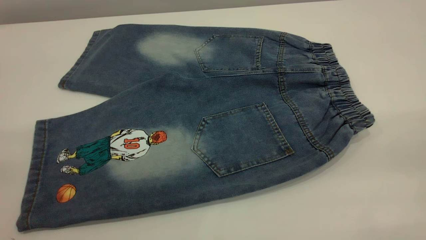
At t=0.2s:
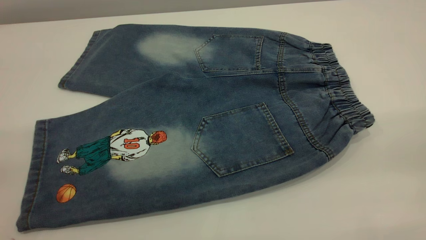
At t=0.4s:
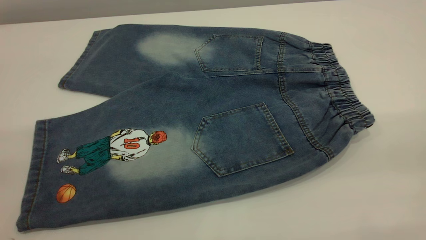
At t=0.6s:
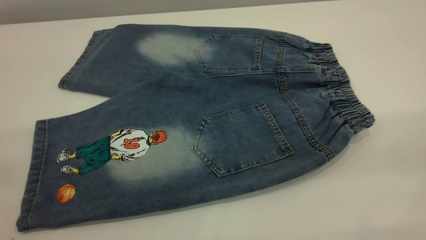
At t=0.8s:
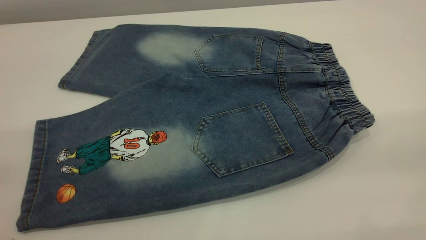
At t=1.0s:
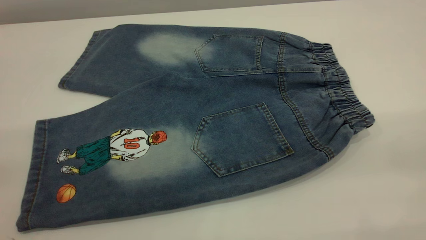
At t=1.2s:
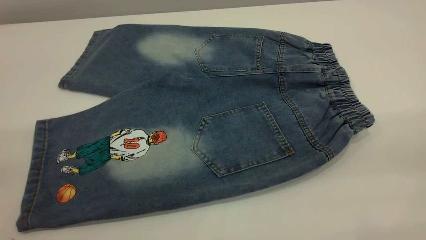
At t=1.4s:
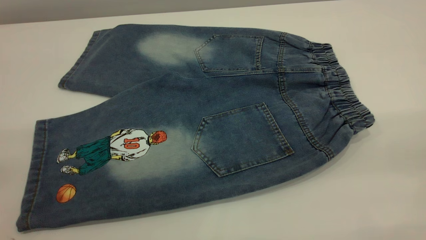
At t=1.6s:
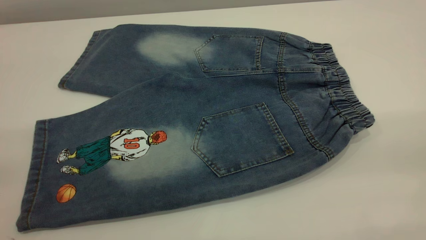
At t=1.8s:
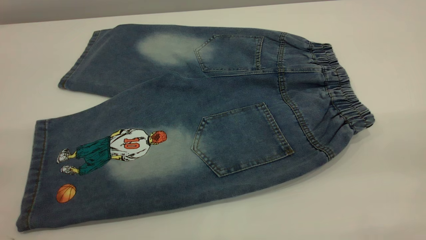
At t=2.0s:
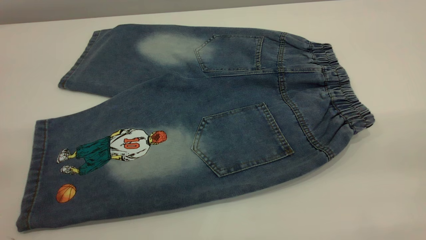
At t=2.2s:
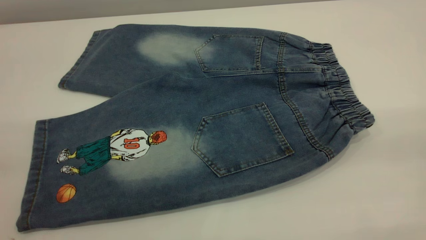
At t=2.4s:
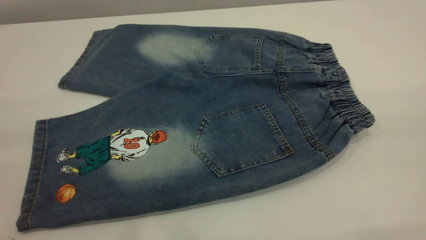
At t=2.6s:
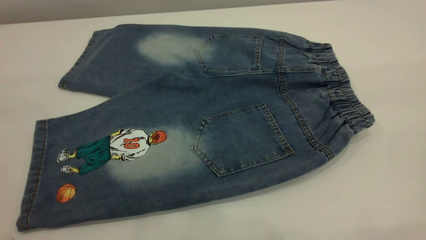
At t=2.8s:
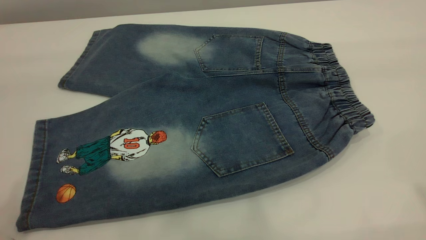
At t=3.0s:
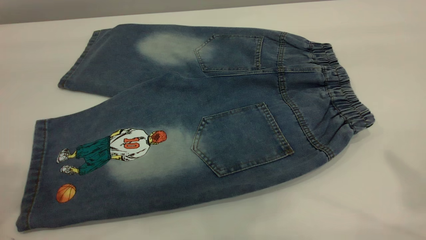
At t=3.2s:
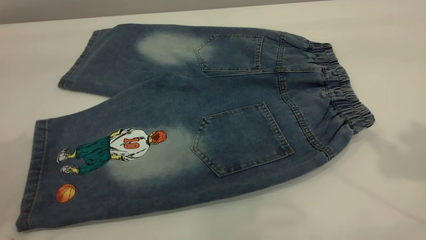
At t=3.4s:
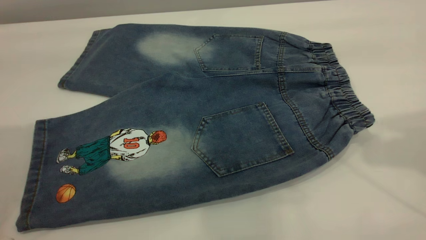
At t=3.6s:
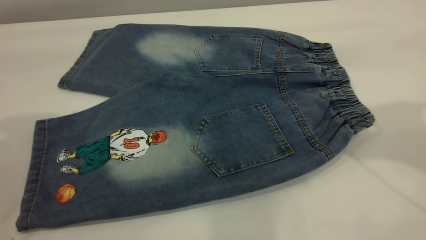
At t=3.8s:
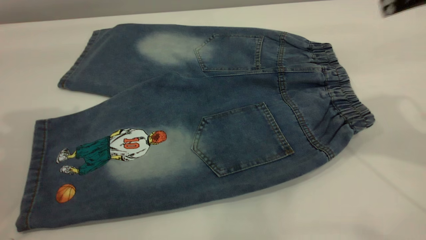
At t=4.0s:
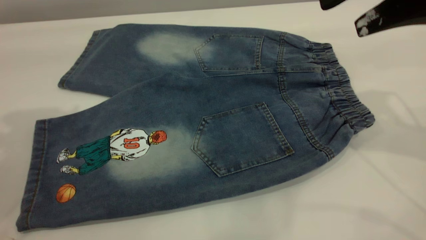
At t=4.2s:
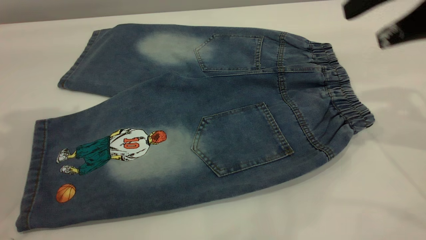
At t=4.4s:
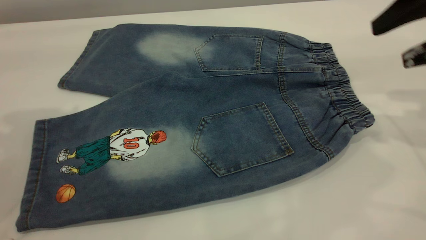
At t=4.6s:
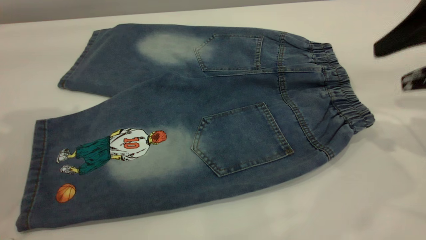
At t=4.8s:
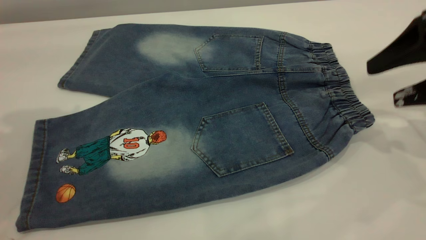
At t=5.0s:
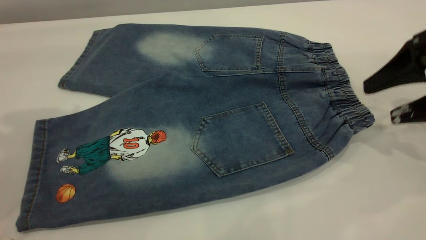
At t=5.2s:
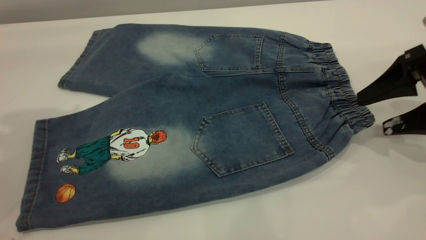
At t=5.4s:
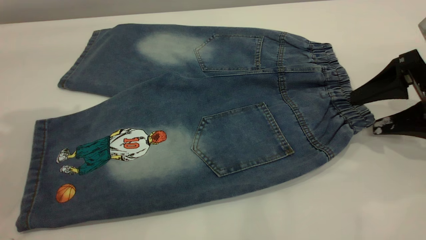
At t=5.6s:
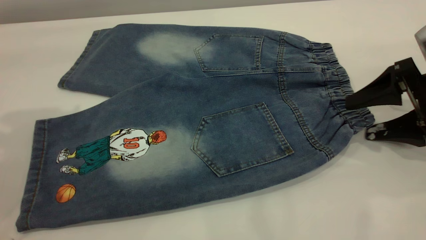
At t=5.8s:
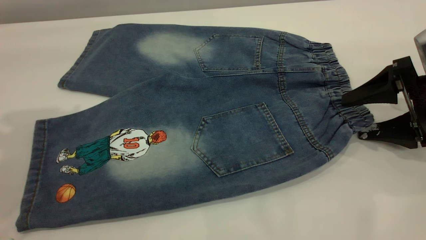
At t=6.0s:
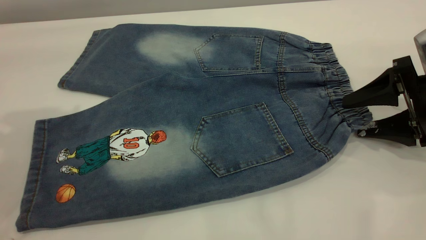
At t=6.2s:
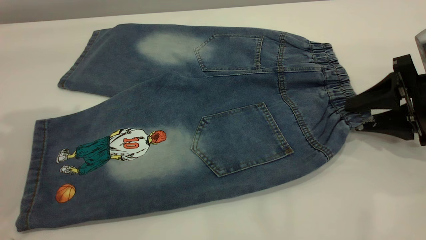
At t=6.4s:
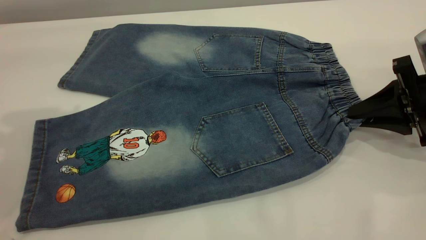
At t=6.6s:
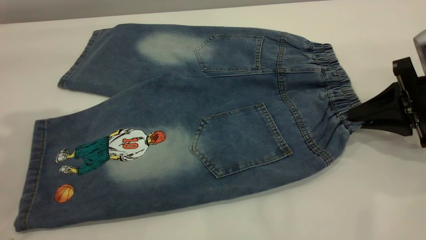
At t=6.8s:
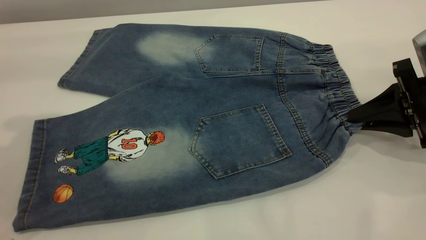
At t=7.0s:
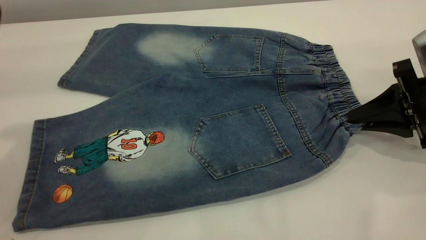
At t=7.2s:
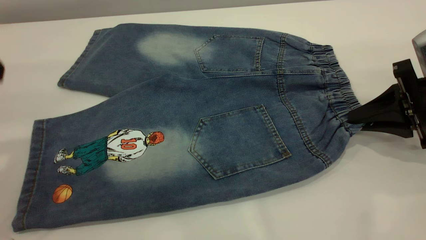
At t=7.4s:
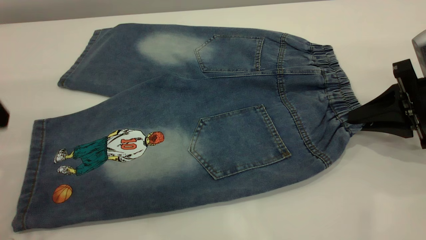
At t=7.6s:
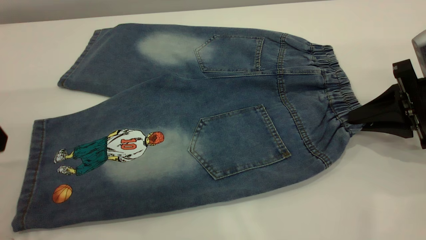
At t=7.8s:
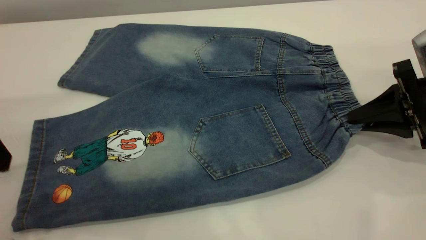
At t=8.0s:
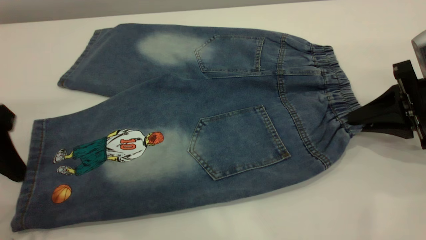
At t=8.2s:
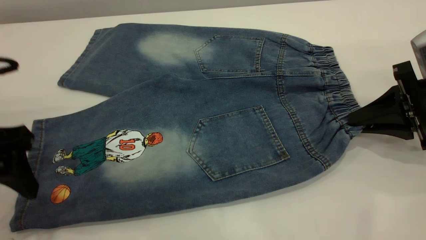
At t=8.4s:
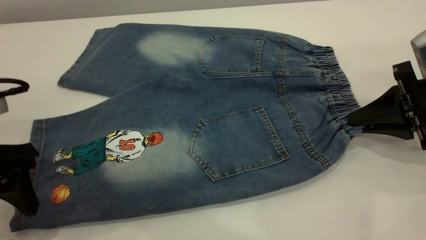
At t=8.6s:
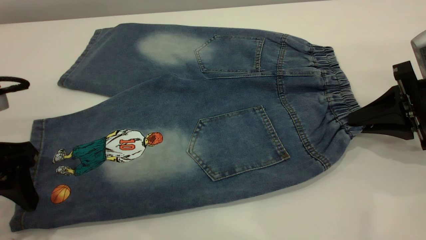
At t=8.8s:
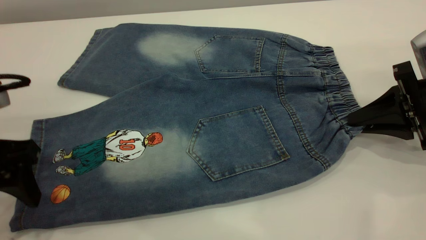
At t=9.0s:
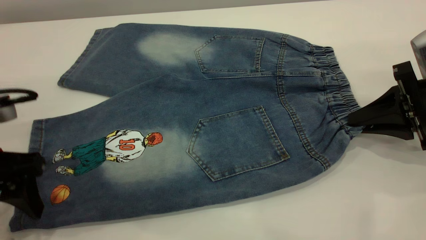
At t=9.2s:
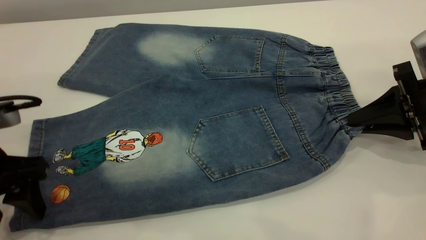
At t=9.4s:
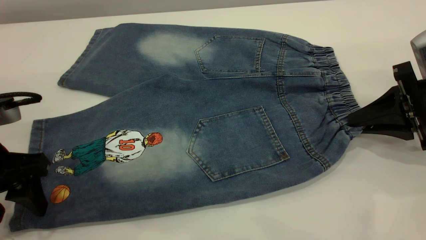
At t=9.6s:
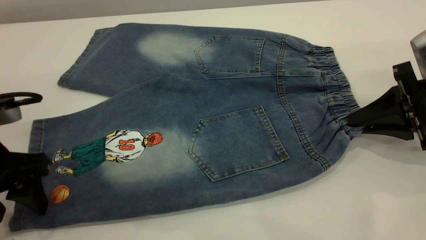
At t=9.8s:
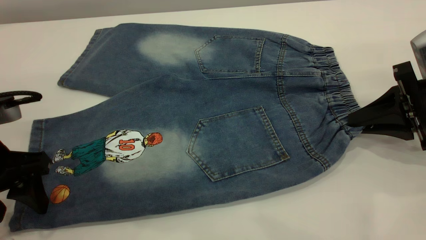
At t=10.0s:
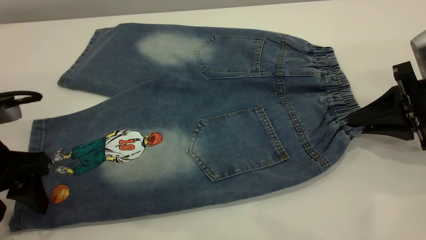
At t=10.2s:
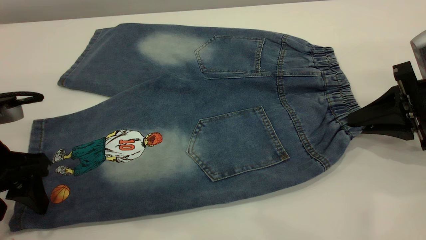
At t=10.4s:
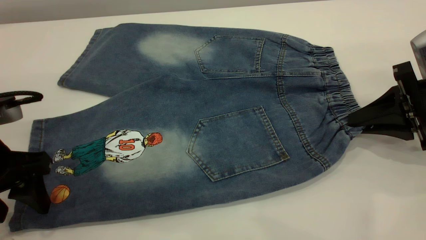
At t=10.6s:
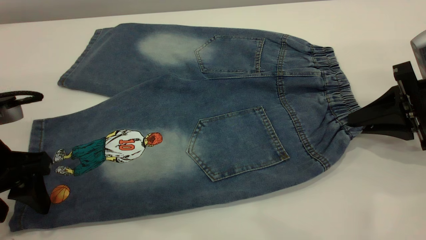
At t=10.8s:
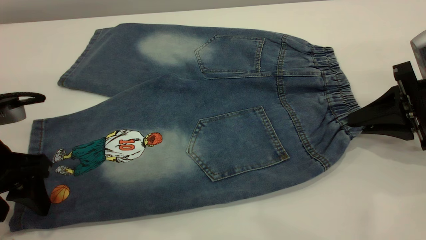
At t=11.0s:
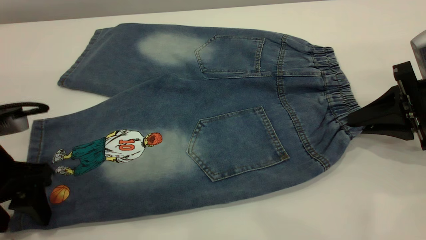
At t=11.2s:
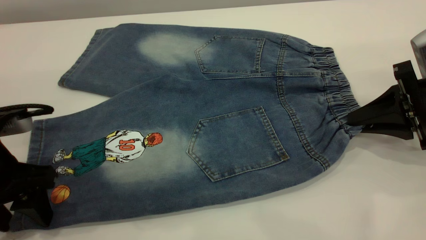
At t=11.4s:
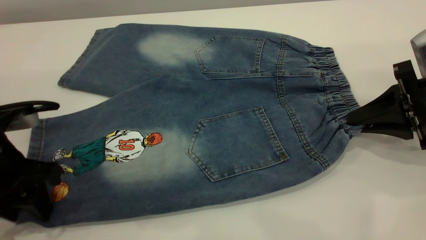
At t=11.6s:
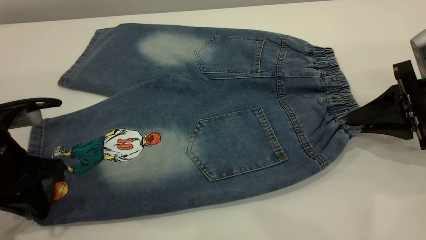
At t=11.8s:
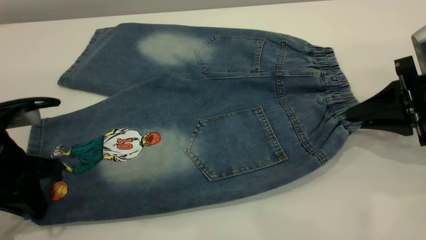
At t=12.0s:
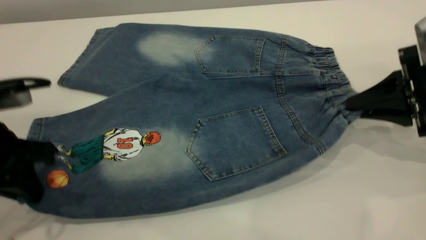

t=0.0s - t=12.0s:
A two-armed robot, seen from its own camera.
t=0.0s - t=1.6s: Both grippers stay put.
t=3.0s - t=4.4s: The left gripper moves forward and downward, roughly 10 cm. Meanwhile the right gripper goes roughly 25 cm downward and forward.
t=4.4s - t=6.0s: The right gripper is displaced downward by approximately 15 cm.
t=6.0s - t=7.6s: The right gripper closes its fingers. The left gripper heads downward and backward, covering about 15 cm.
t=7.6s - t=9.0s: The left gripper moves downward, approximately 10 cm.
t=9.0s - t=10.4s: Both grippers stay put.
t=10.4s - t=12.0s: The left gripper closes.

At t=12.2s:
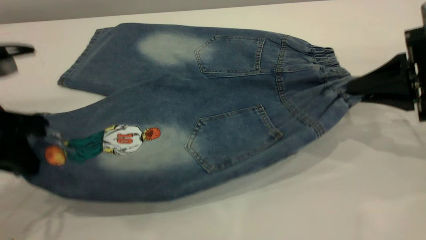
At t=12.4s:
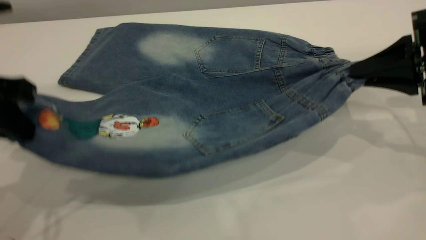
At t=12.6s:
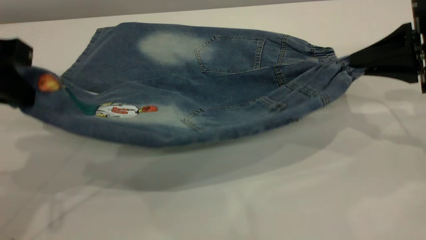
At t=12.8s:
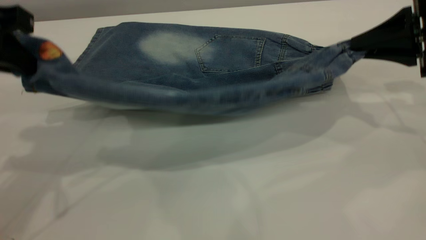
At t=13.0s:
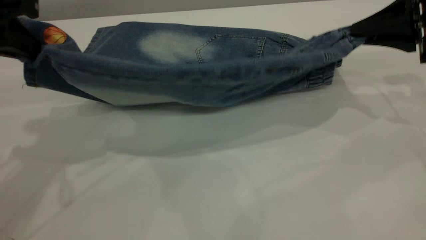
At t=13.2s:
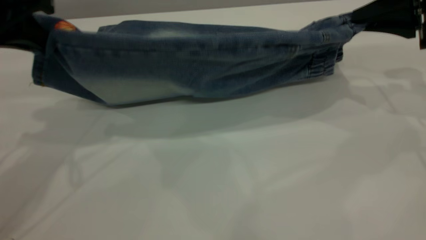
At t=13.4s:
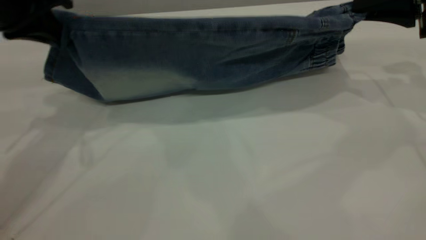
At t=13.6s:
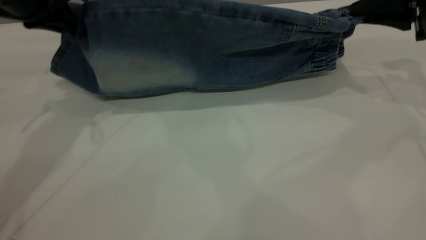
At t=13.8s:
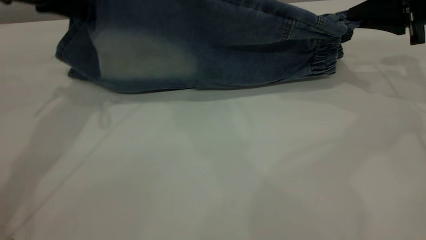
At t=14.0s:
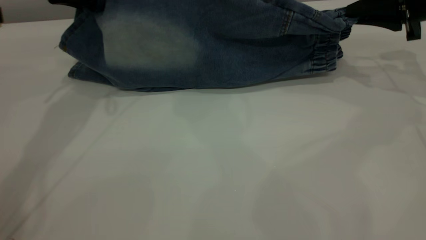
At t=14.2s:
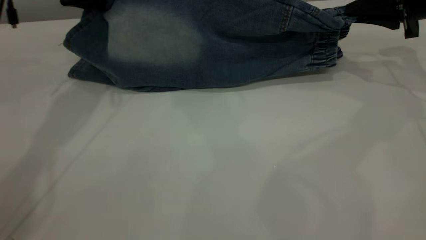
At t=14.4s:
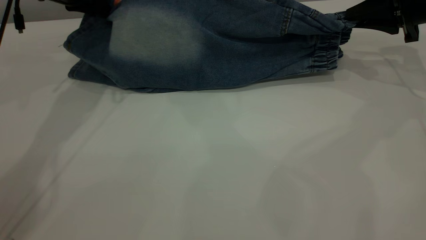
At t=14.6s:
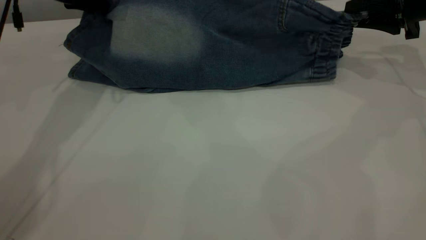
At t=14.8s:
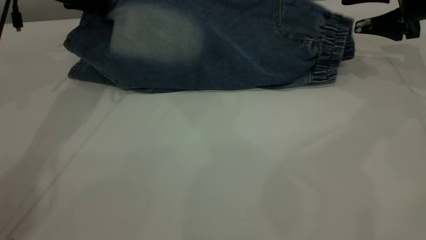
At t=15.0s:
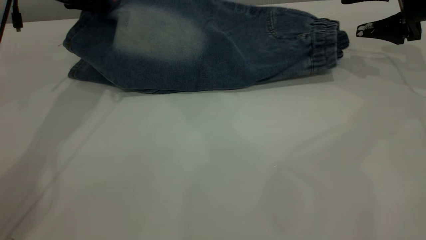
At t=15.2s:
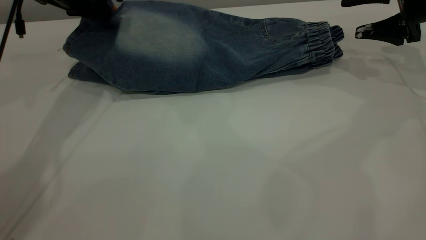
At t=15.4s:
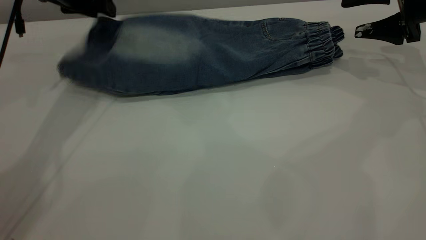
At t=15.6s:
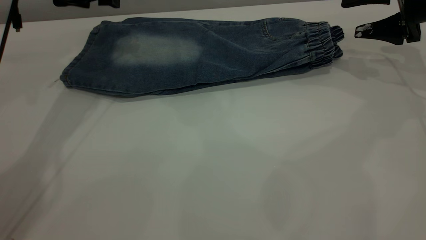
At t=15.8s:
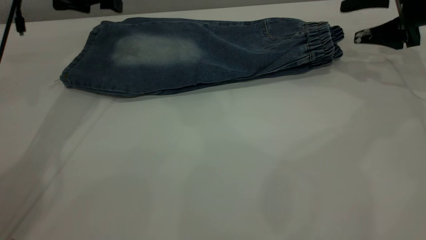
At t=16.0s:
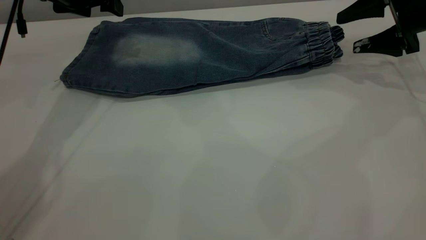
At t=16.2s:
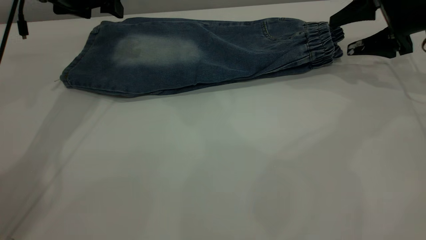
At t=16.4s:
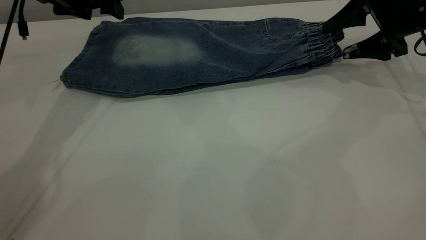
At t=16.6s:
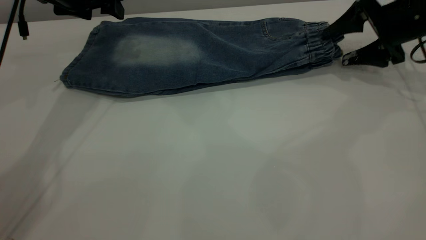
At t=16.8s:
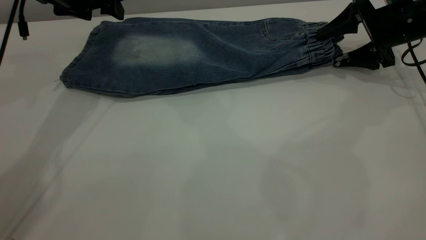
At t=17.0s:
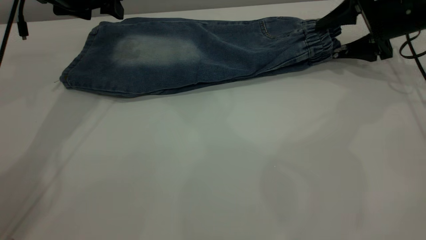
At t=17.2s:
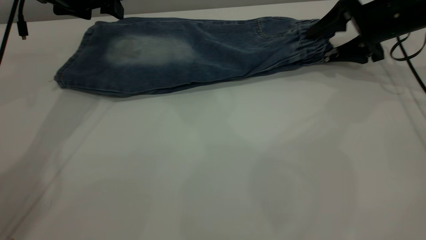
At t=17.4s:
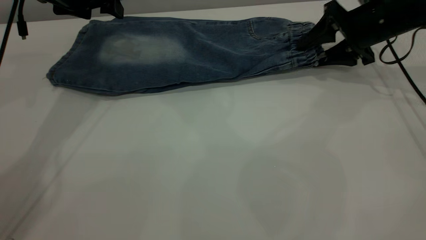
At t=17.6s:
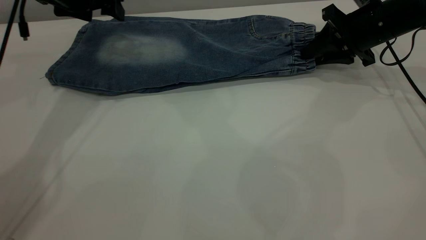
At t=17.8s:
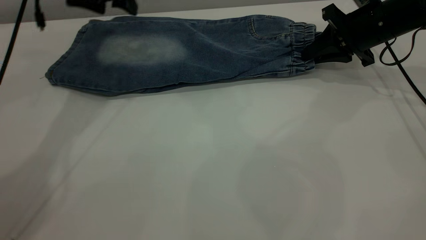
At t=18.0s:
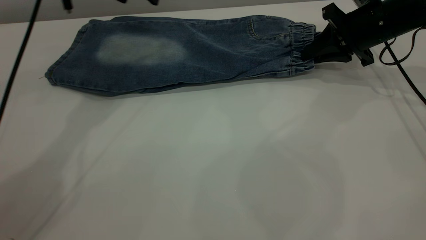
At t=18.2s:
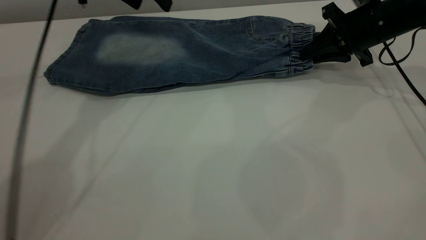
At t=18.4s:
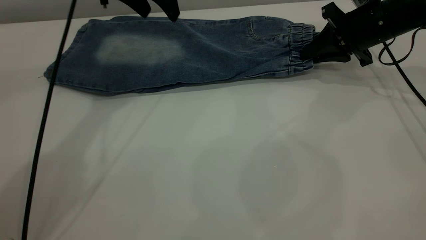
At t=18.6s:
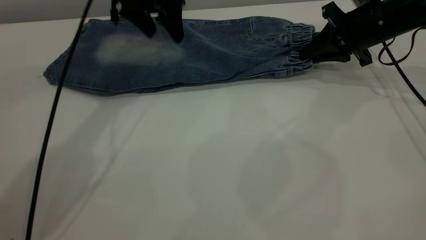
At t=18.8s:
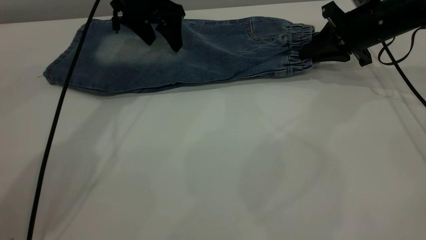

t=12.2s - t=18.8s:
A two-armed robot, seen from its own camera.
Step, t=12.2s - t=15.6s: Fold the bottom of the pants upward.
t=12.2s - t=13.8s: The right gripper goes roughly 10 cm forward; the left gripper shifts about 20 cm forward.
t=13.8s - t=15.4s: The right gripper opens, while the left gripper shifts approximately 5 cm forward, and opens up.
t=15.4s - t=17.2s: The right gripper travels to the left by approximately 5 cm.
t=17.2s - t=18.8s: The left gripper shifts roughly 10 cm to the right; the right gripper closes up.
